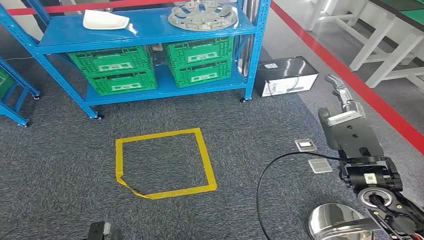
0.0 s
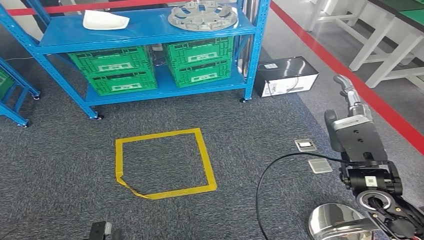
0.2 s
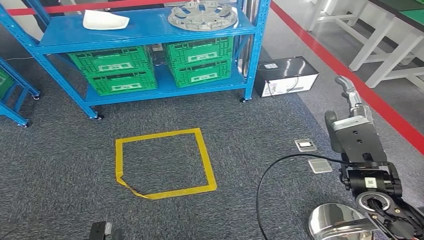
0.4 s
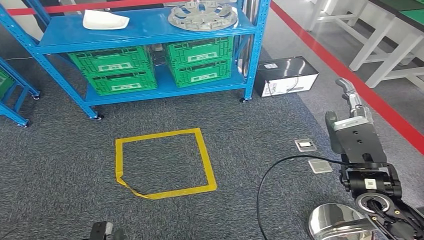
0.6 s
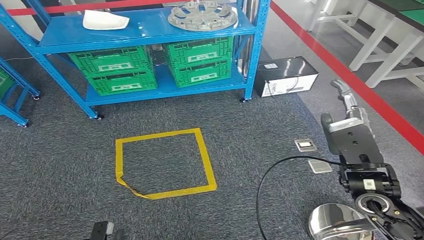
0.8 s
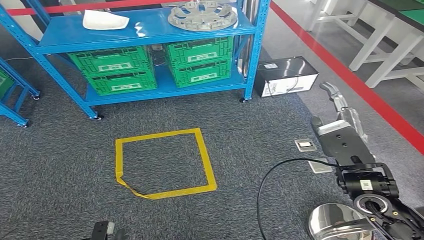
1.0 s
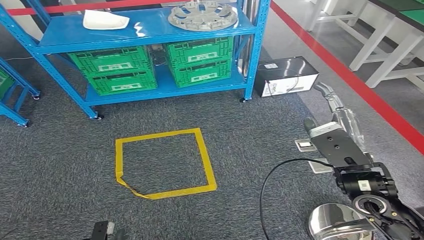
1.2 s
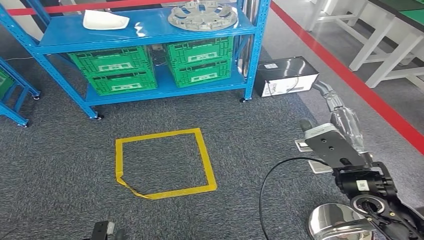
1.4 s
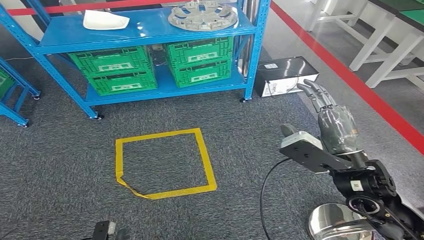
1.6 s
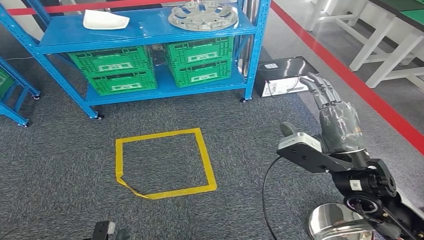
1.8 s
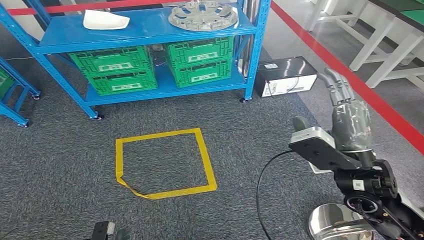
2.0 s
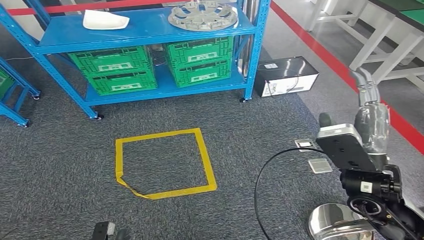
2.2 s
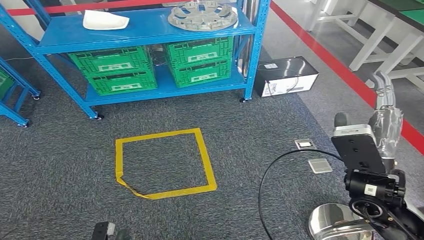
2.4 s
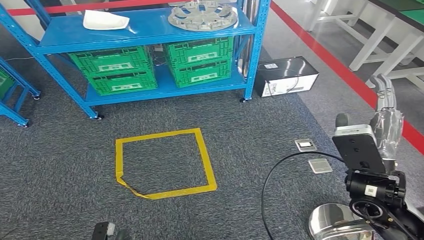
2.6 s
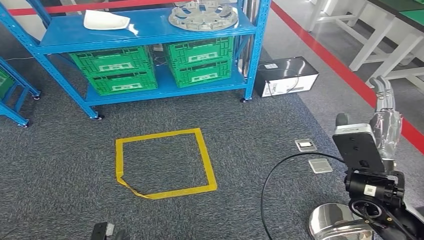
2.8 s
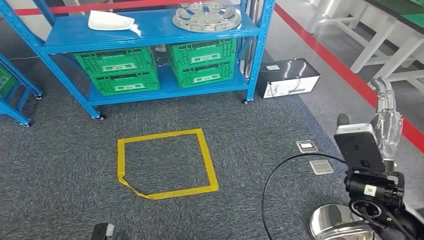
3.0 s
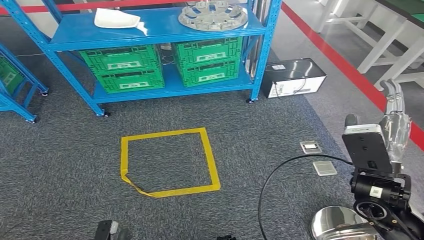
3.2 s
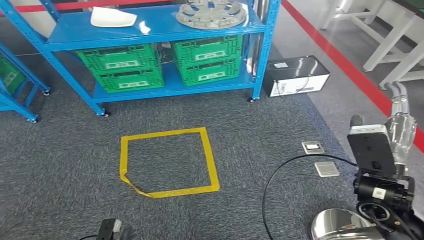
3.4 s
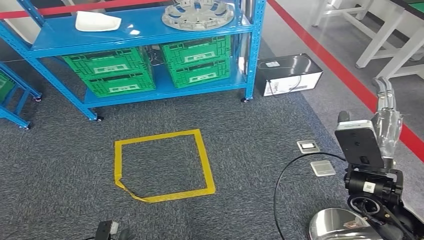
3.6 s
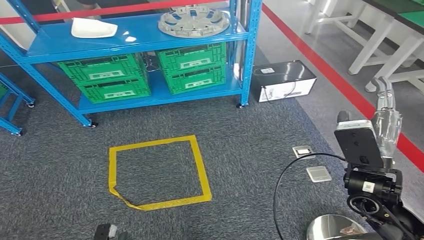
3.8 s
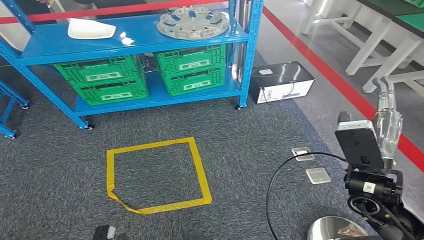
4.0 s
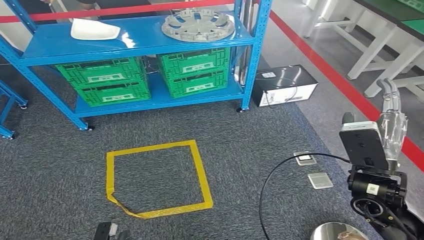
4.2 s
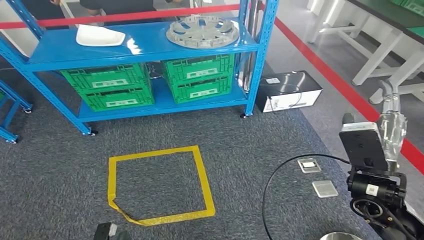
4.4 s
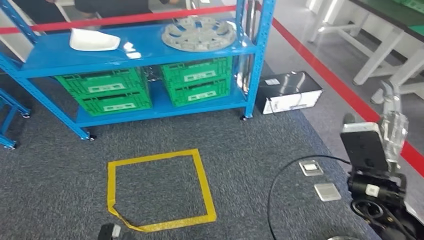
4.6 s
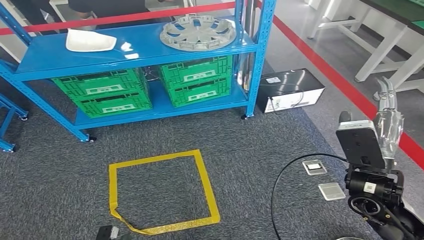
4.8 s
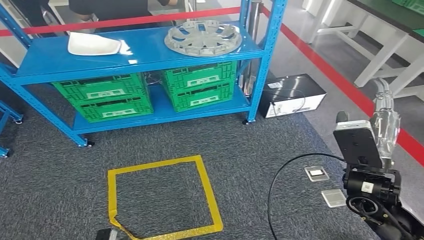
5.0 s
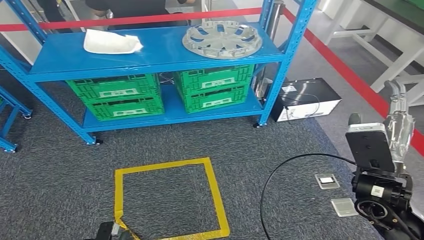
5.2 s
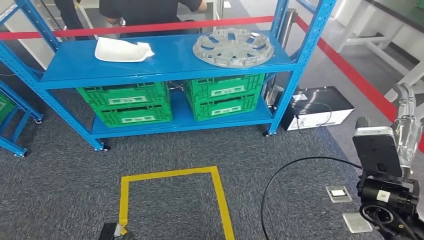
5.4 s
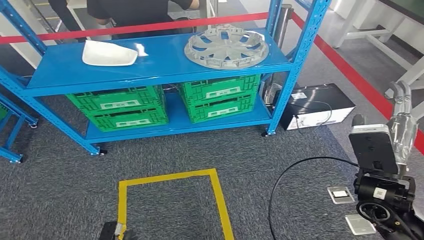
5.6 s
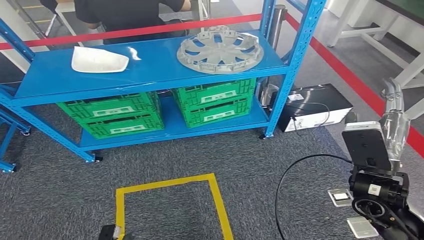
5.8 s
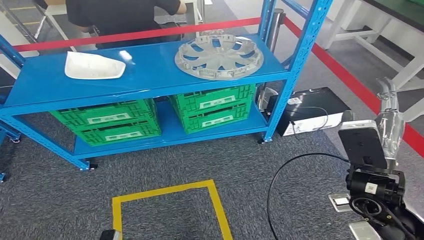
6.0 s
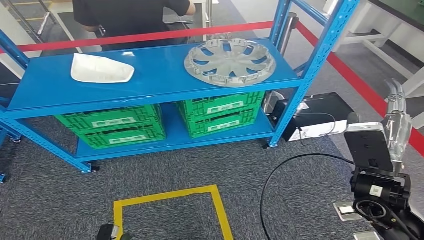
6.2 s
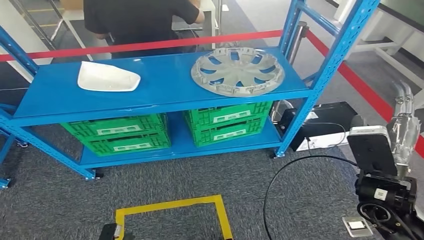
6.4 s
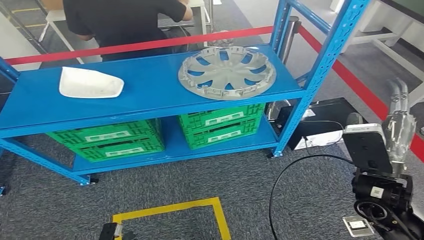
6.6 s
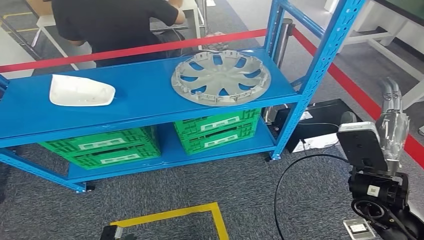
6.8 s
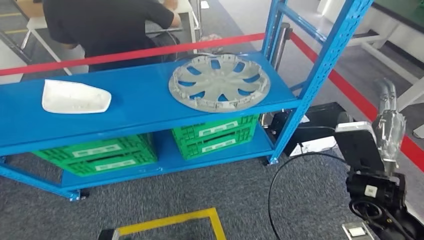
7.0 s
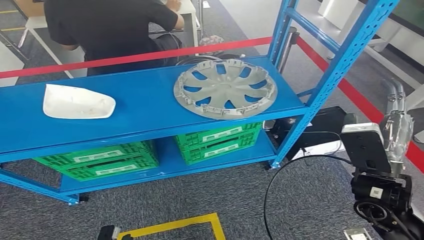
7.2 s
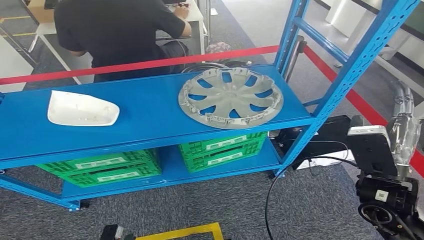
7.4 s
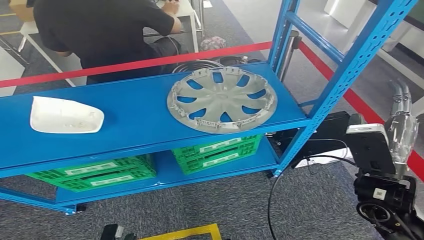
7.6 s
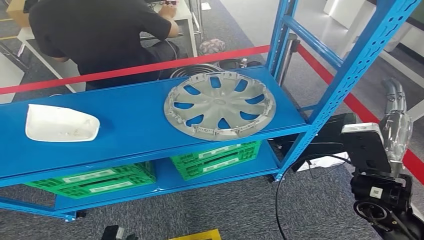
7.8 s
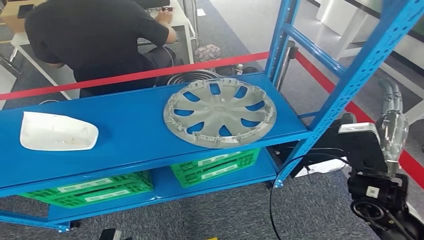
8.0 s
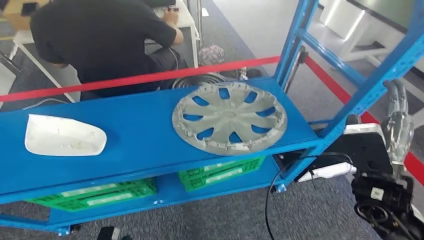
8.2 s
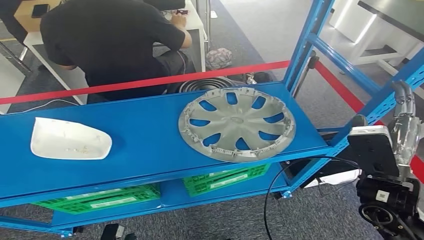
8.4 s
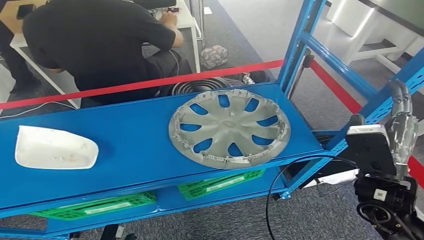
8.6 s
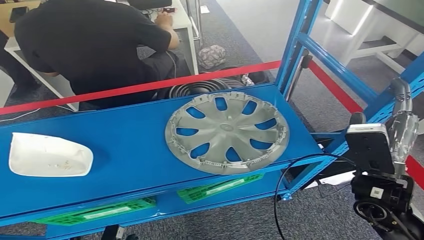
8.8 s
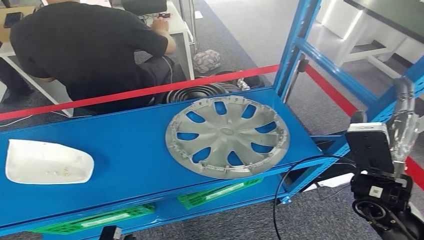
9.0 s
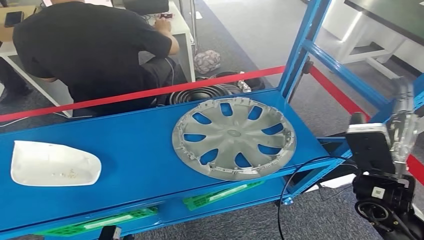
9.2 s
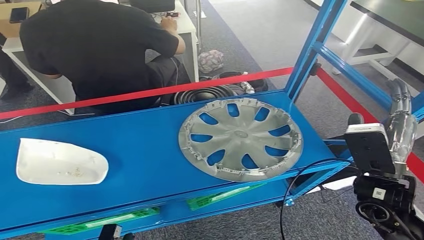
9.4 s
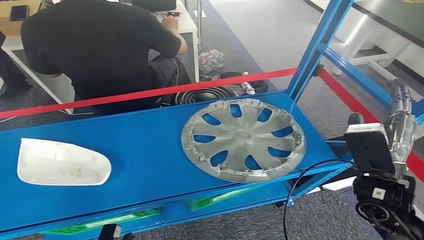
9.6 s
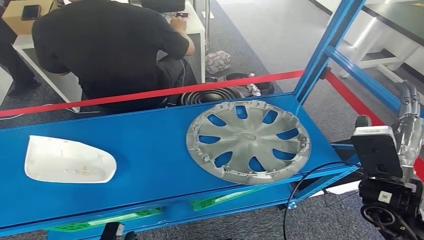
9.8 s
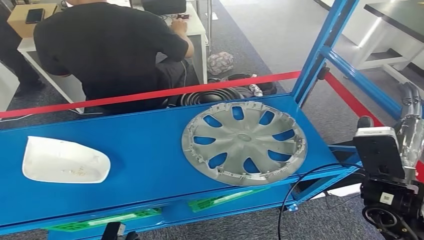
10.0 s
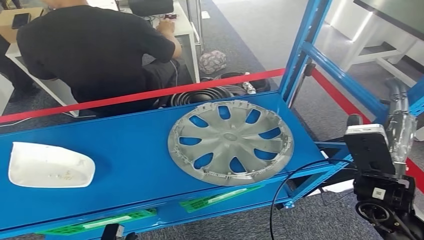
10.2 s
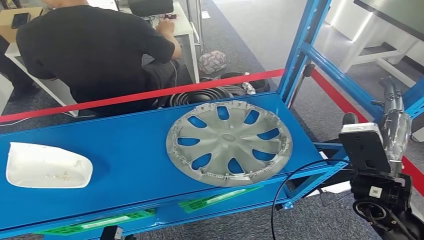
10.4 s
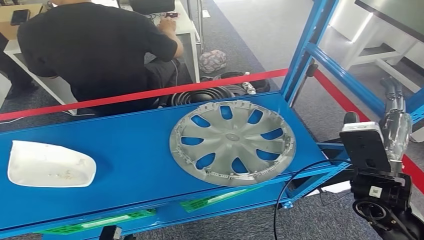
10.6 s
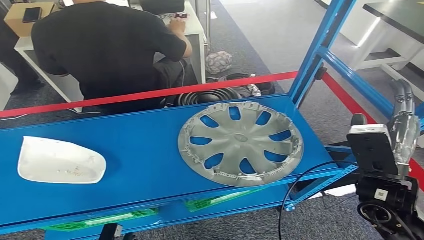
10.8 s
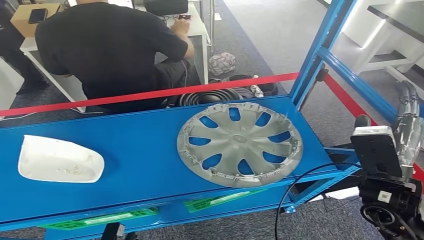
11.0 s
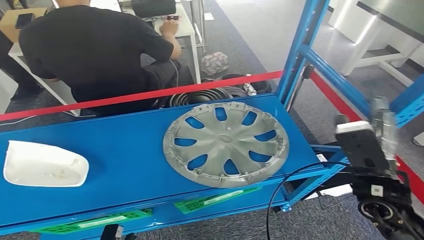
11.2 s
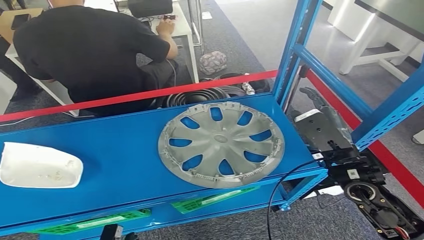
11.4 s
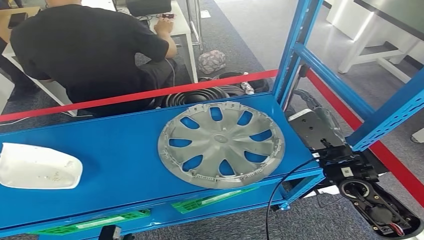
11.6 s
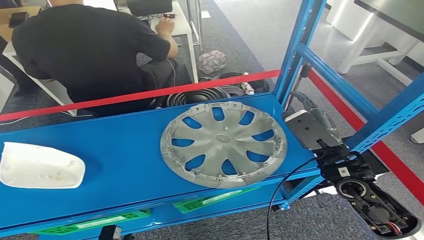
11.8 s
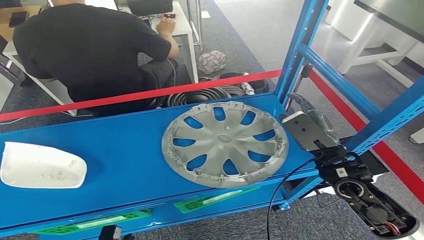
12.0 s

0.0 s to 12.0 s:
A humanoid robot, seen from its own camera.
10.4 to 12.0 s: The right hand moves some 5 cm.

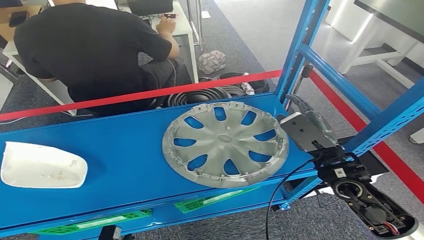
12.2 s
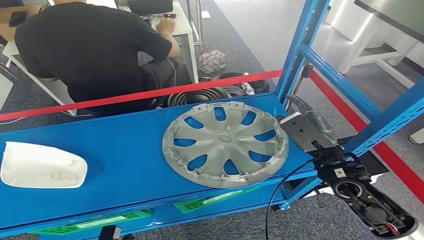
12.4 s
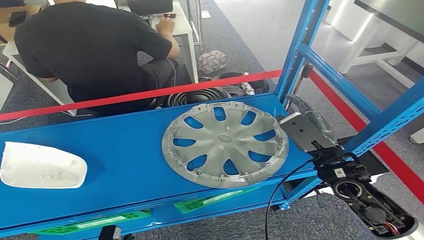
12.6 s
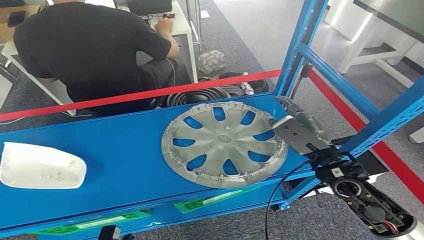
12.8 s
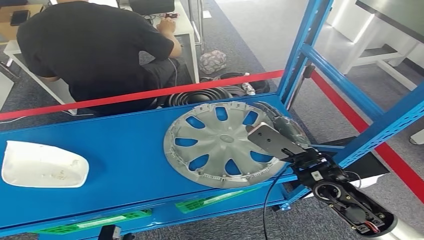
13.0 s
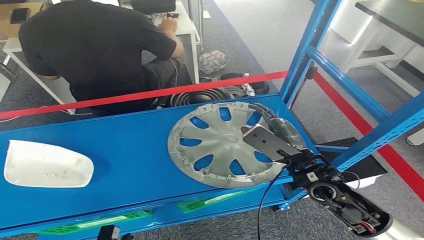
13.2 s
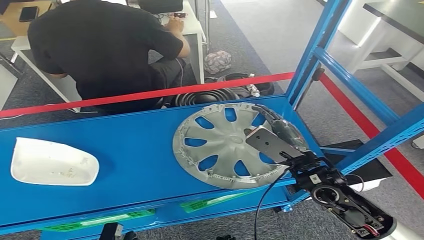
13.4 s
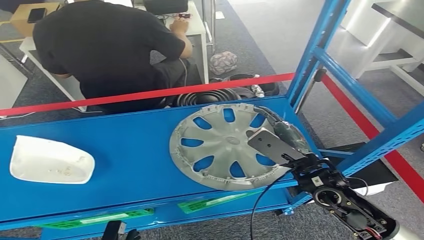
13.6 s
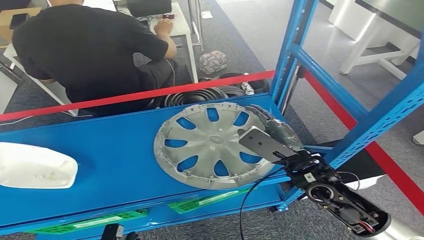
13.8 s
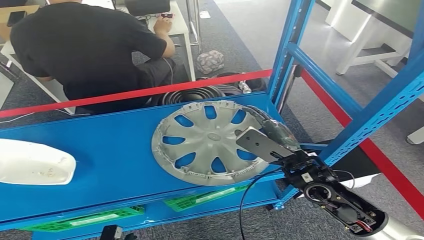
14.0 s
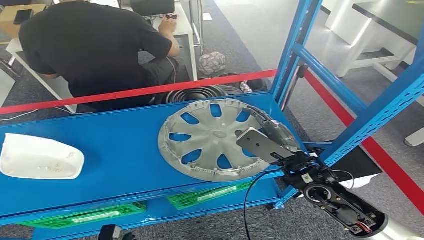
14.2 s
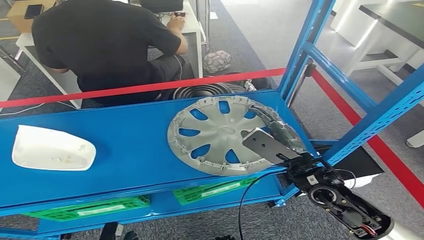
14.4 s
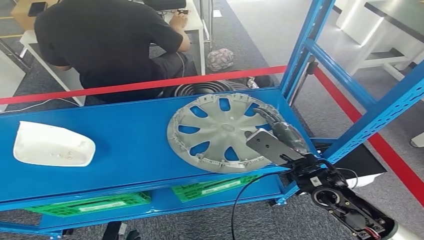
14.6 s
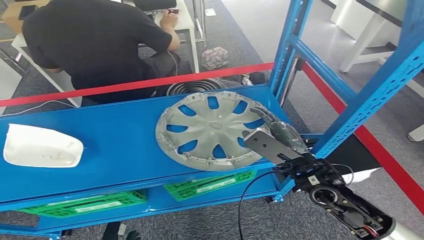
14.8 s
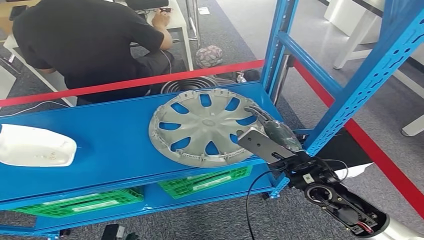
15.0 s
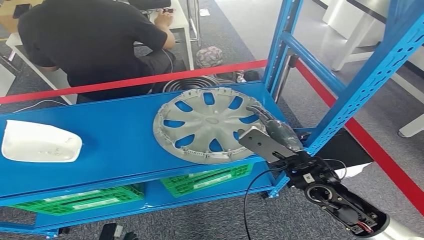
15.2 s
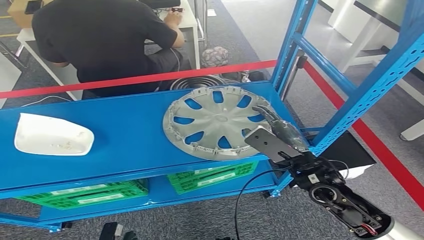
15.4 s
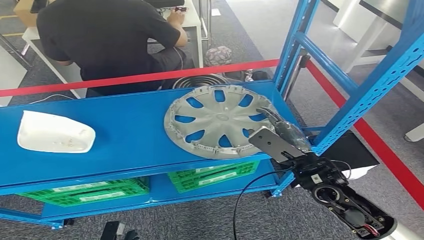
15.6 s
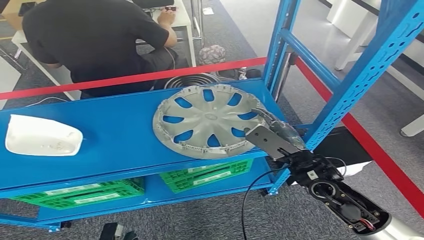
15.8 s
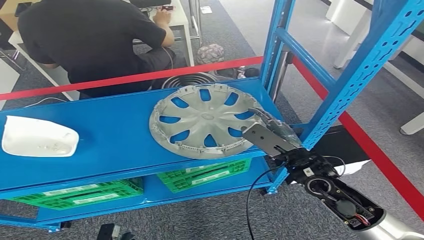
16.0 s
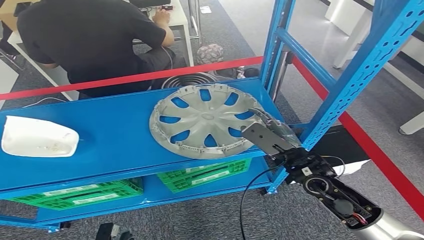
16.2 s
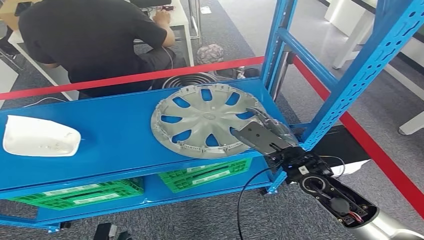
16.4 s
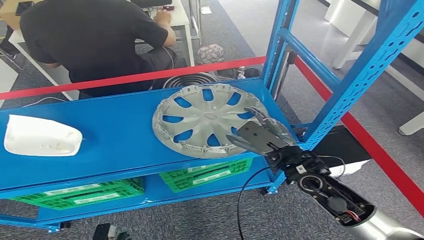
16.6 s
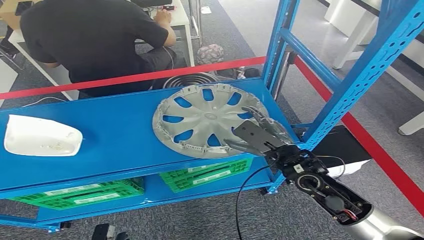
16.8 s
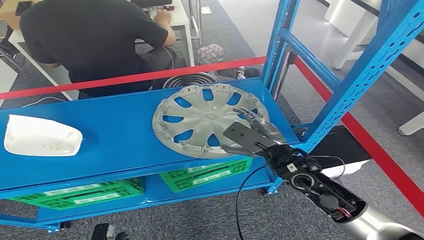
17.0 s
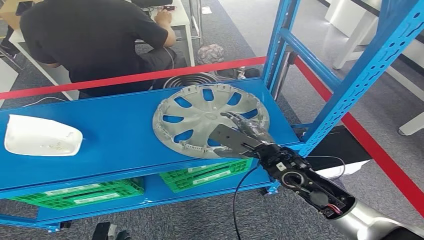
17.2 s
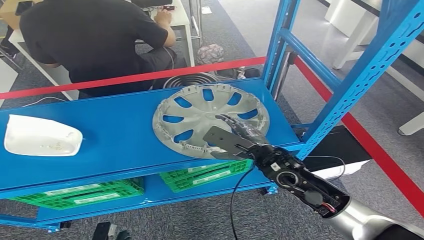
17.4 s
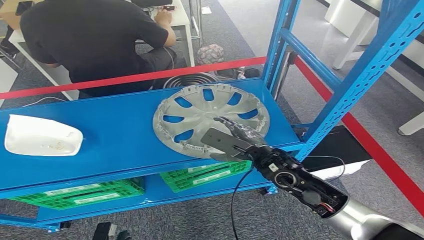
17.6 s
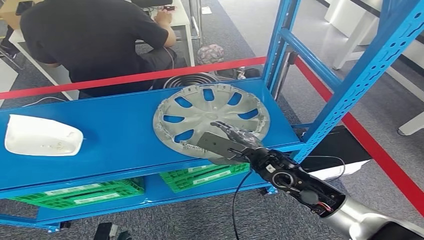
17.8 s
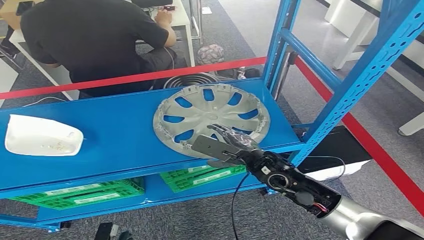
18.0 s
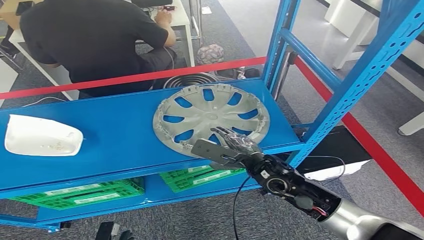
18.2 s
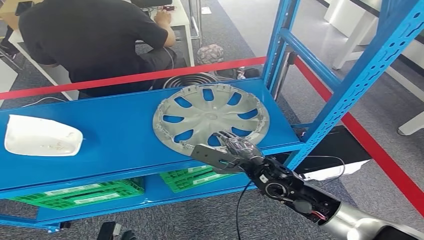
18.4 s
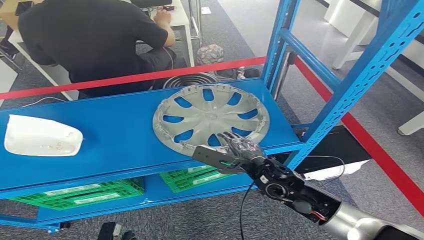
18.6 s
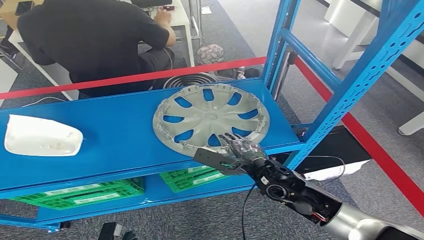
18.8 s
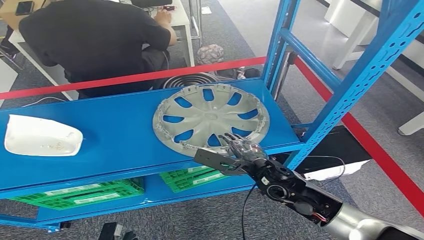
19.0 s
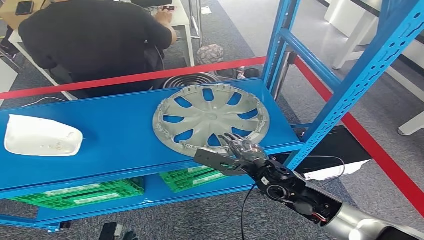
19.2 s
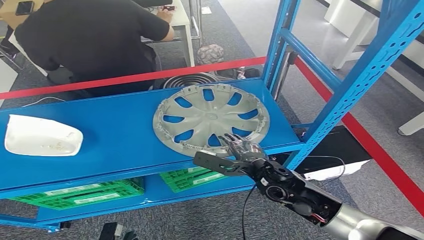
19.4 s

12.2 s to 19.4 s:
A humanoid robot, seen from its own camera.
16.6 to 18.0 s: The right hand travels to the left by roughly 5 cm.
18.0 to 19.4 s: The hands make only small movements.
